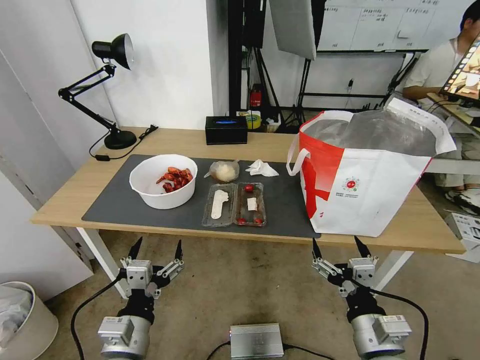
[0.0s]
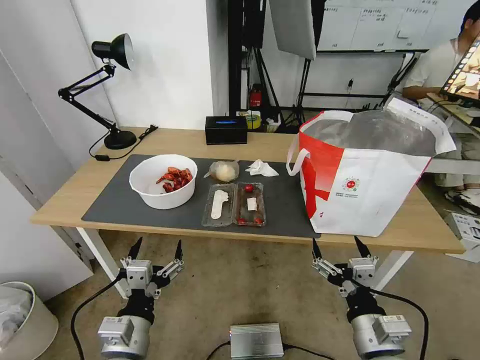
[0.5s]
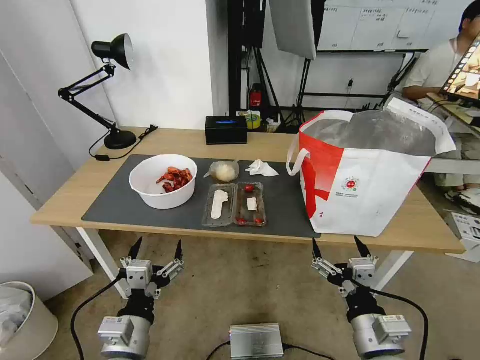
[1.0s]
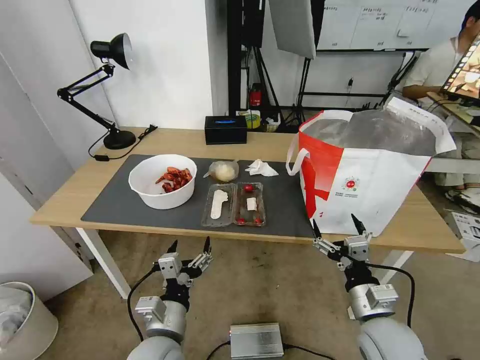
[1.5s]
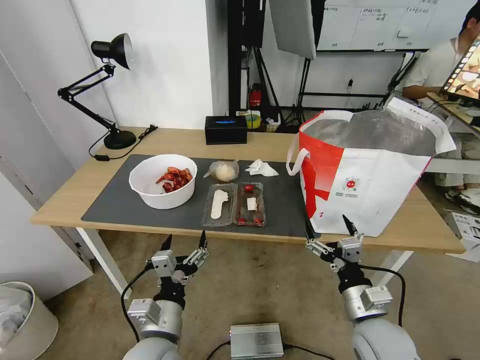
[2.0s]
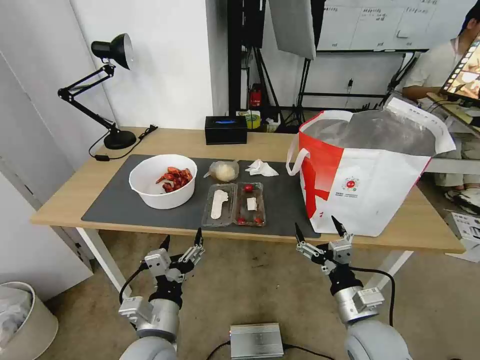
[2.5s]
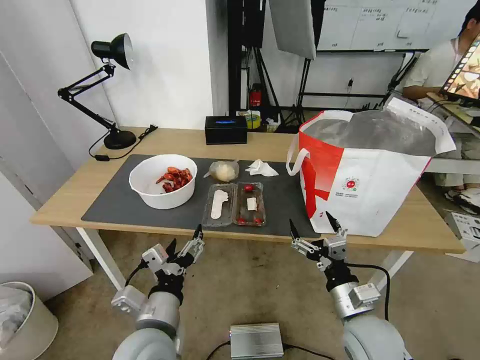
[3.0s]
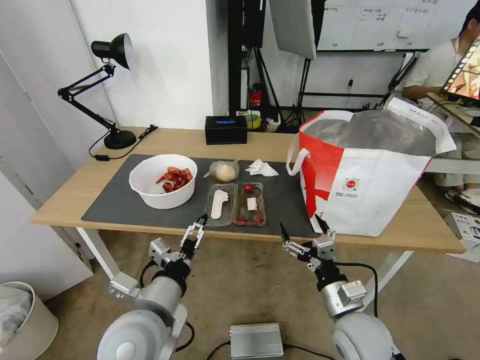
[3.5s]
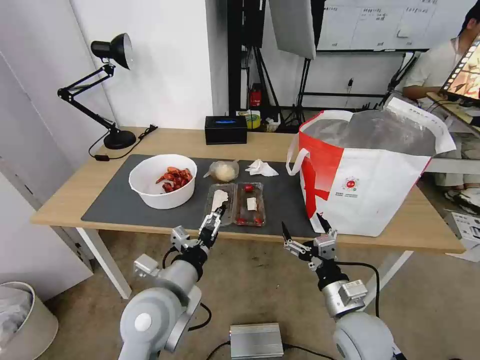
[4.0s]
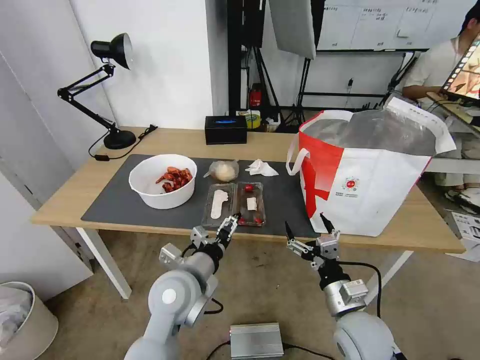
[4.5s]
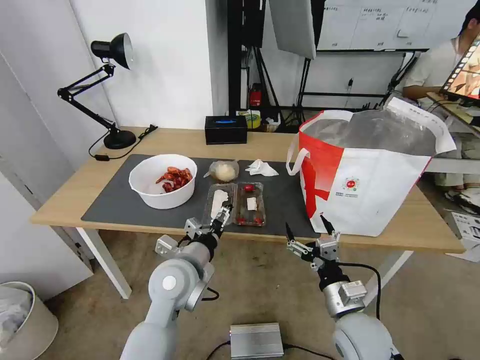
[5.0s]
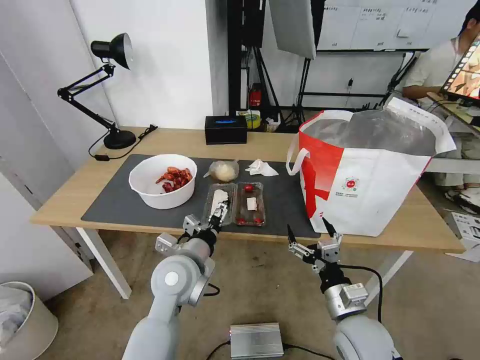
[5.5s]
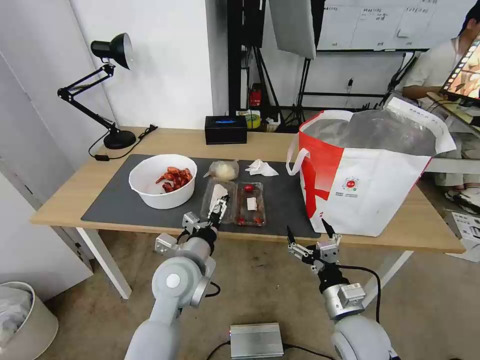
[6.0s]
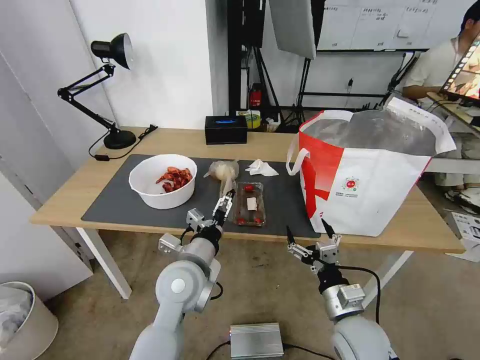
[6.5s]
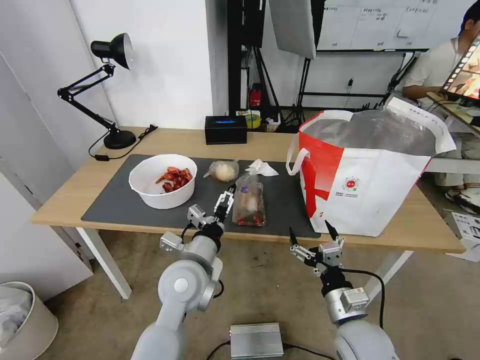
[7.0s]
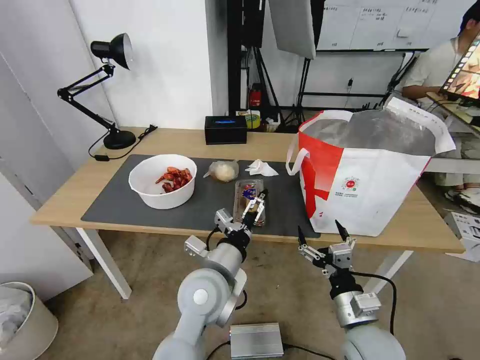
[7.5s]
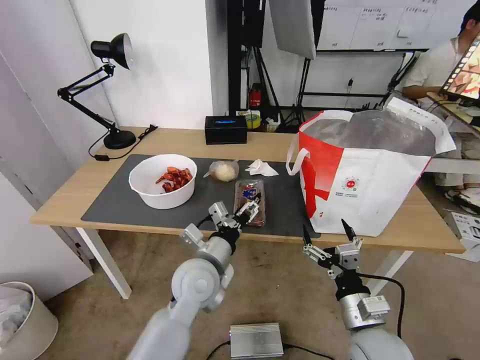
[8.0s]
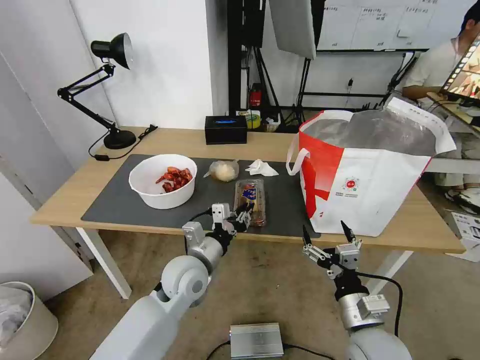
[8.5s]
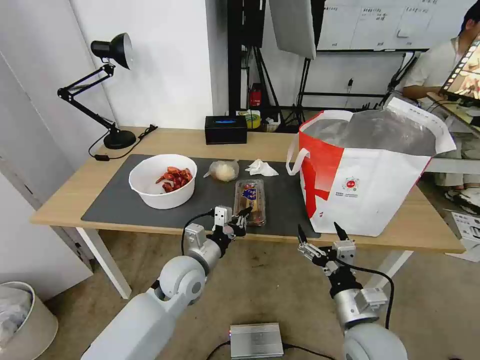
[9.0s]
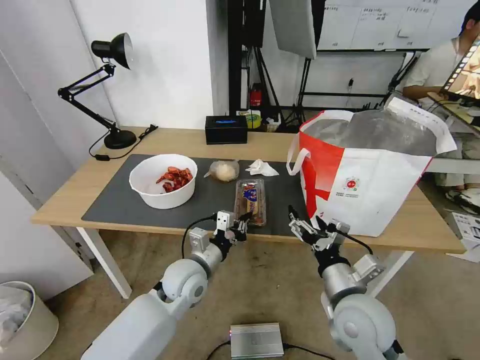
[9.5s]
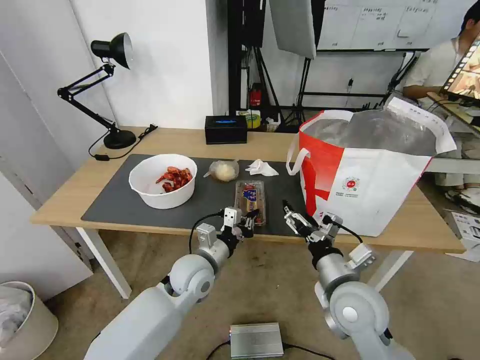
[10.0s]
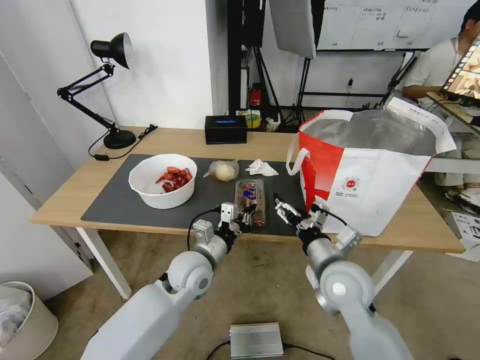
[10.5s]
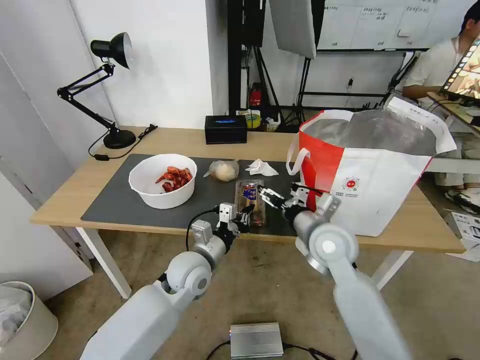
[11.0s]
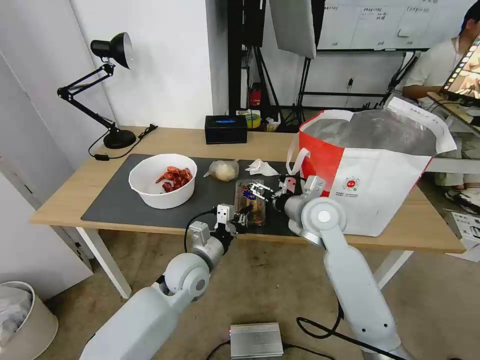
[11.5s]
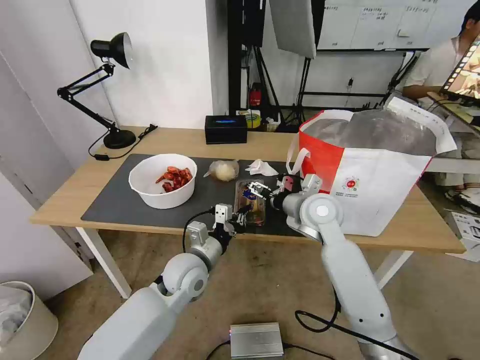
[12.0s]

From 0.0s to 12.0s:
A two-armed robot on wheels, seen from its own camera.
Task of the whole recording: Pick up the trash from the table and place it into the takeout bag.
From 2.0s to 4.0s: The left gripper shifts approximately 10 cm upward and forward.
From 4.0s to 6.0s: The left gripper shifts about 10 cm forward.
From 8.0s to 10.0s: The right gripper goes about 10 cm forward and upward. Meanwhile the left gripper shifts by roughly 5 cm, and closes up.
From 10.0s to 12.0s: The right gripper is displaced forward by approximately 20 cm.

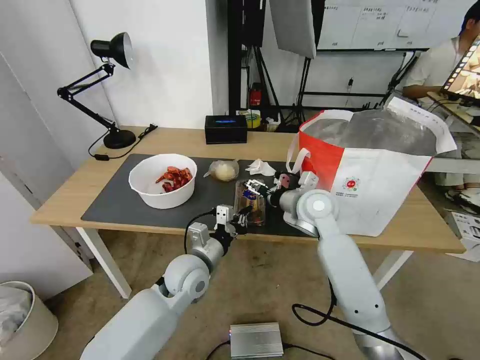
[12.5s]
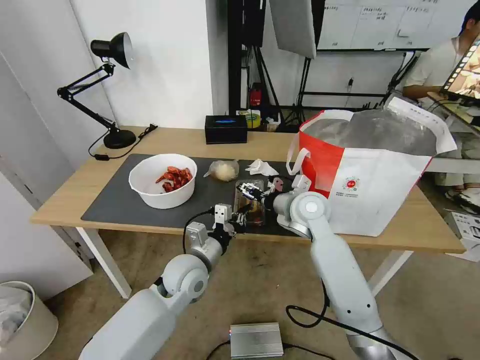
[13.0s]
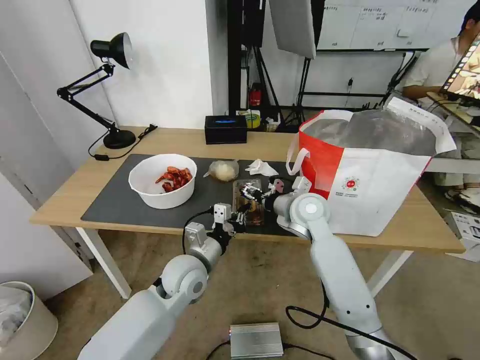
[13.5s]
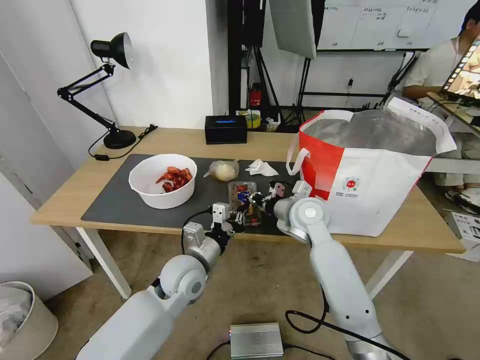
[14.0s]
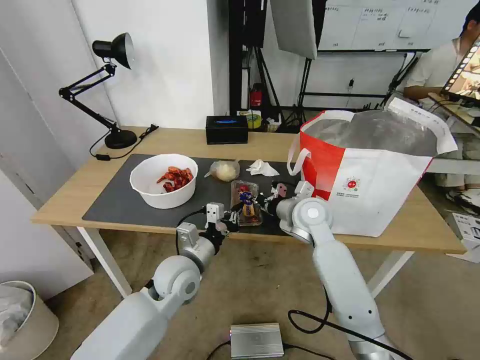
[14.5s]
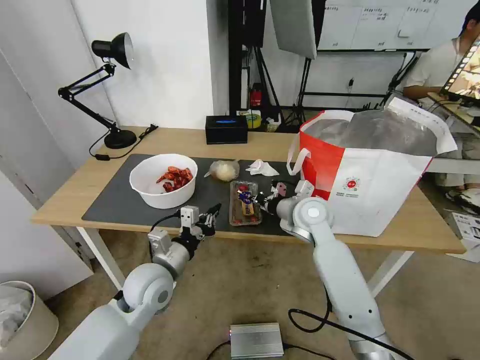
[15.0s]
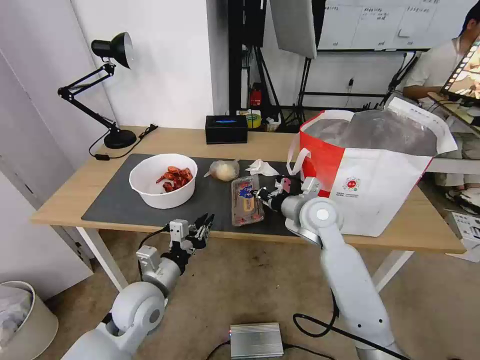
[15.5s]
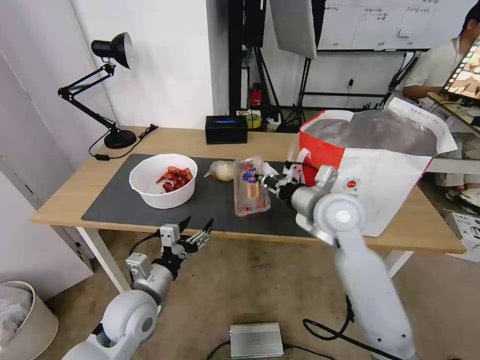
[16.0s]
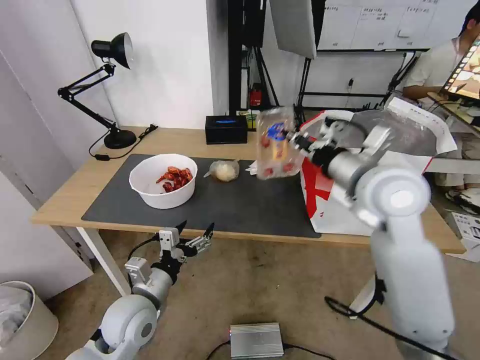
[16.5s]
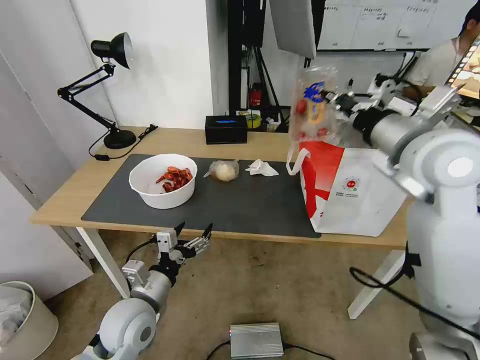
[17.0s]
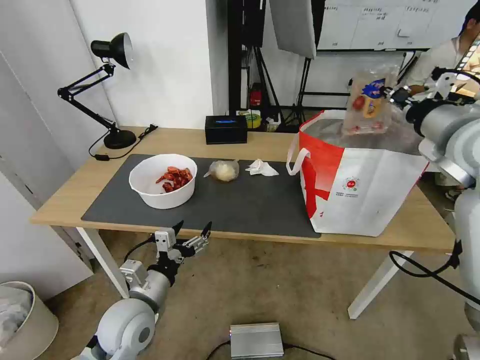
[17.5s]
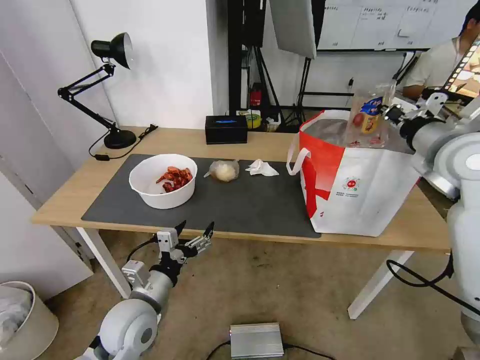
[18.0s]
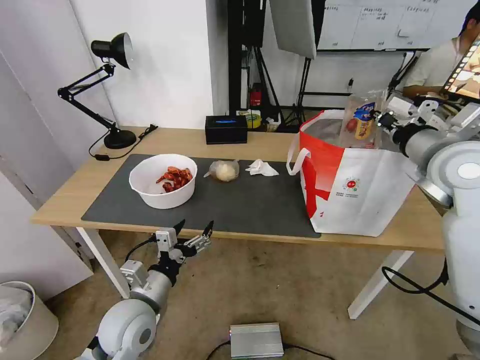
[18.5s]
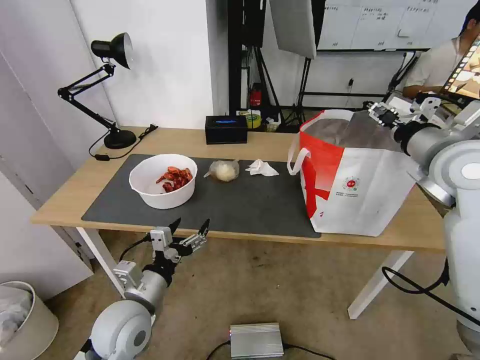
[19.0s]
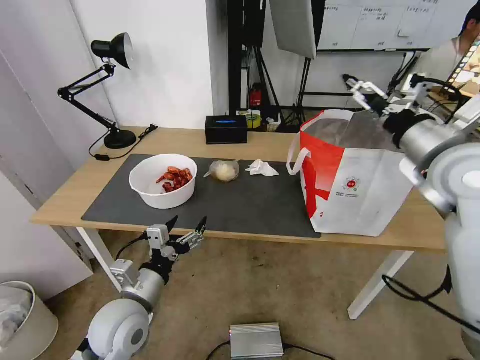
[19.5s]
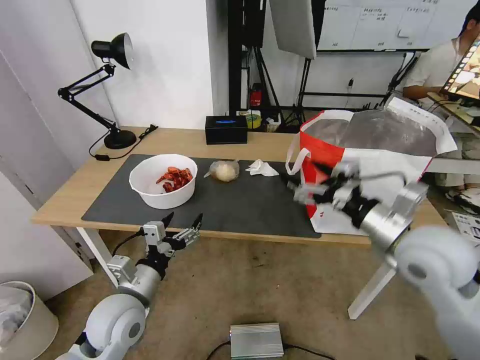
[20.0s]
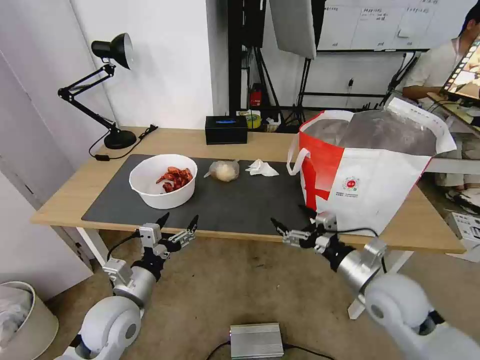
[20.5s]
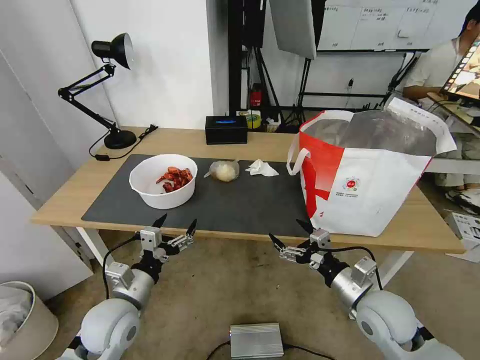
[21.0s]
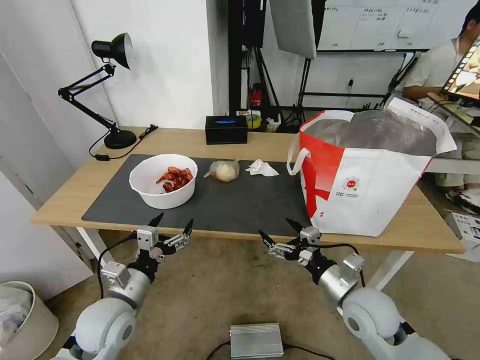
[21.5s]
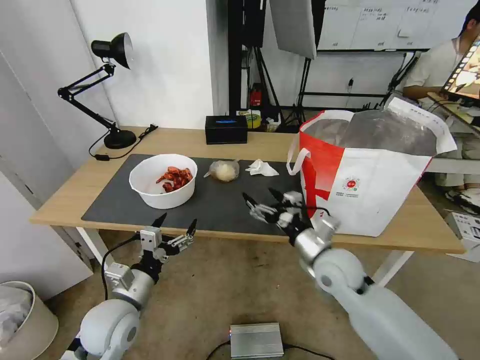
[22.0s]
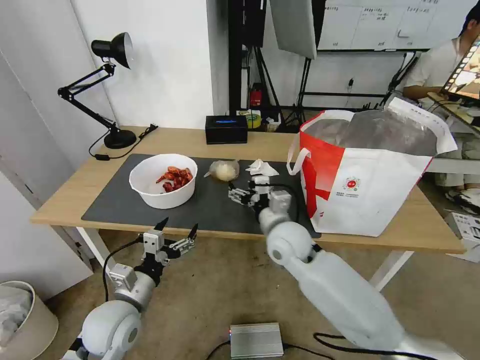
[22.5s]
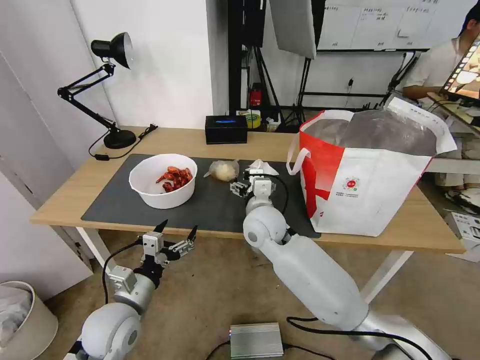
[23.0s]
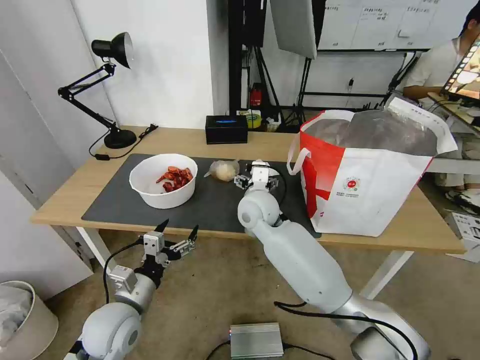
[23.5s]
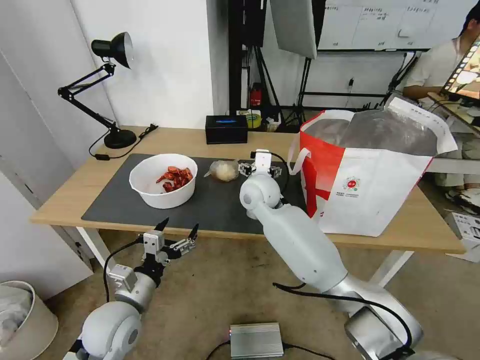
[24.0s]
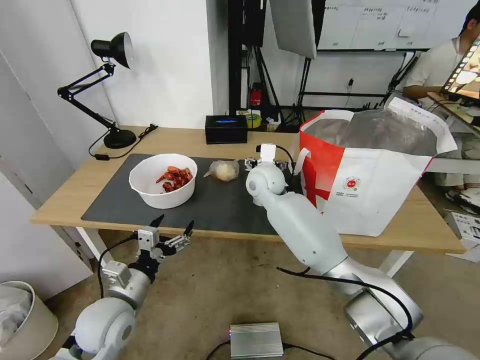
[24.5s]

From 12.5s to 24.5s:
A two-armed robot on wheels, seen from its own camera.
Task of the whole recording: Pick up the trash from the table and place it into the takeout bag.
From 12.5s to 14.5s: The right gripper closes up.
From 14.5s to 16.5s: The right gripper heads upward and backward, covering roughly 20 cm. The left gripper heads to the left and backward, covering about 10 cm, and opens its fingers.
From 16.5s to 18.5s: The right gripper goes about 15 cm to the right.
From 18.5s to 20.5s: The right gripper travels downward and backward by some 25 cm, and opens its fingers.
From 20.5s to 22.5s: The right gripper heads to the left and forward, covering roughly 20 cm.
From 22.5s to 24.5s: The right gripper is displaced forward by some 15 cm.

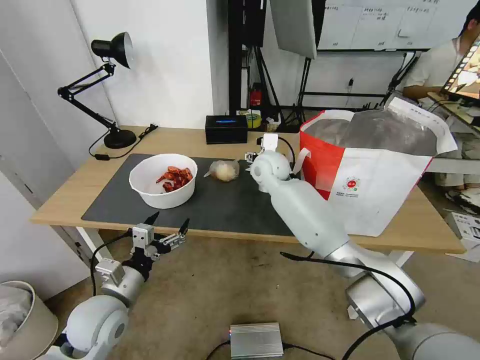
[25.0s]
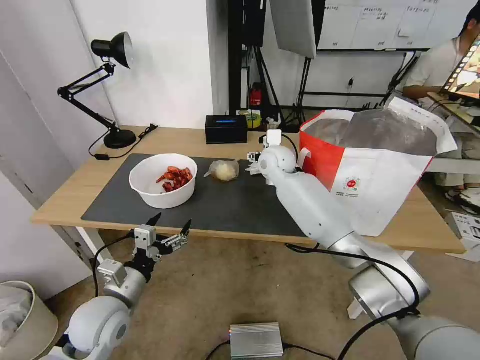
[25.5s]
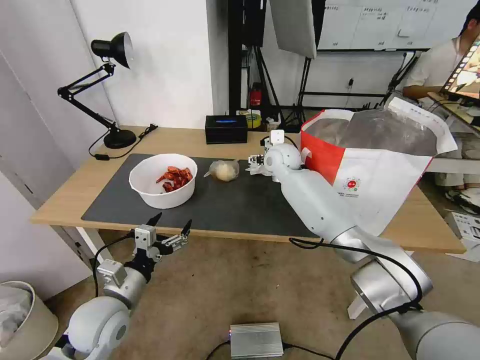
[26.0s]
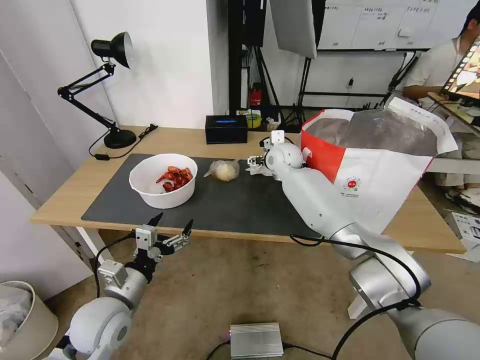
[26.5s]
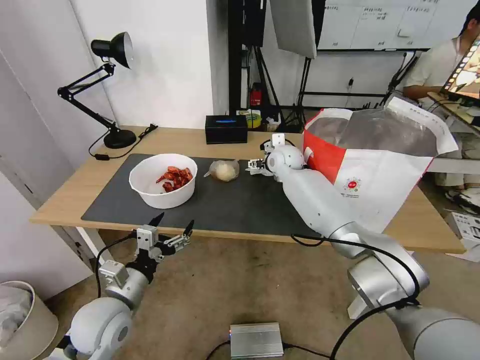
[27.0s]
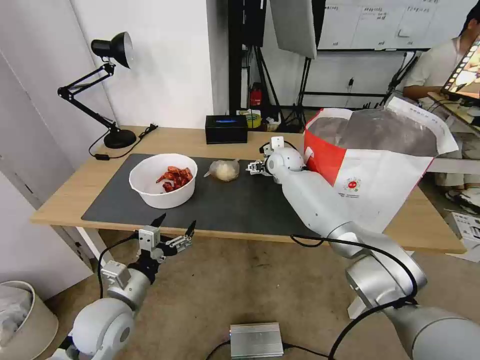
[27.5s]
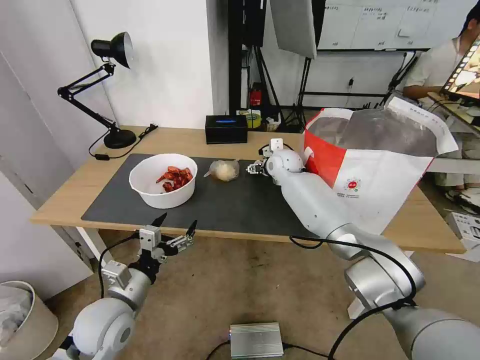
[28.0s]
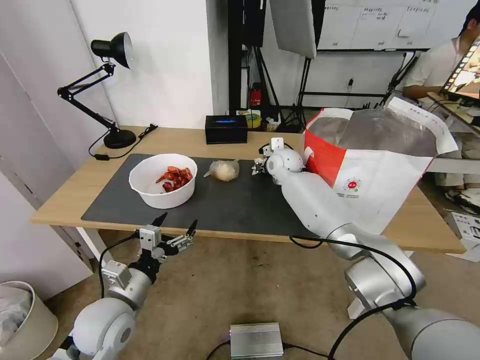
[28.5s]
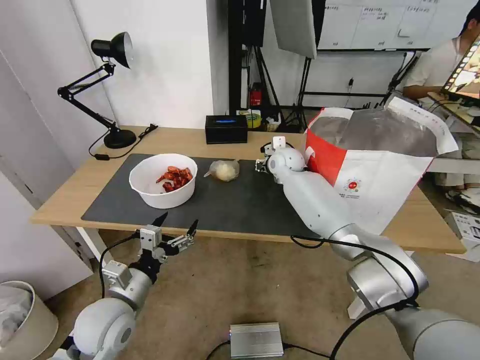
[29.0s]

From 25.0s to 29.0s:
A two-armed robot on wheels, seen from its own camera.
Task of the whole recording: Pick up the trash from the table and place it into the takeout bag.
From 25.0s to 27.0s: The right gripper is displaced forward and to the right by some 10 cm.
From 27.0s to 29.0s: The right gripper closes up.
